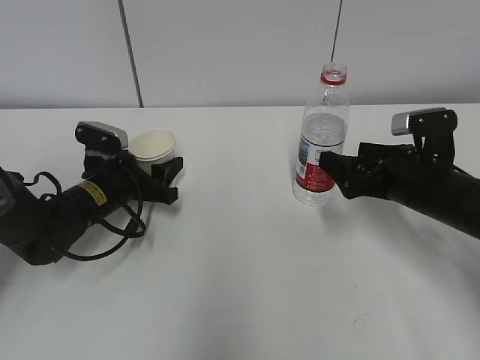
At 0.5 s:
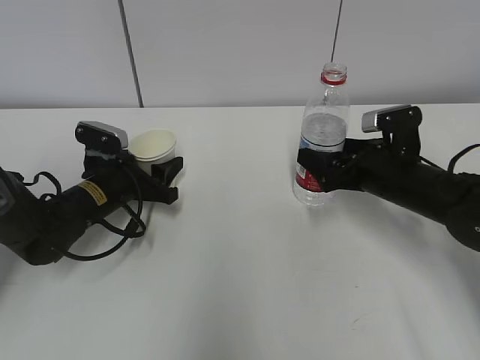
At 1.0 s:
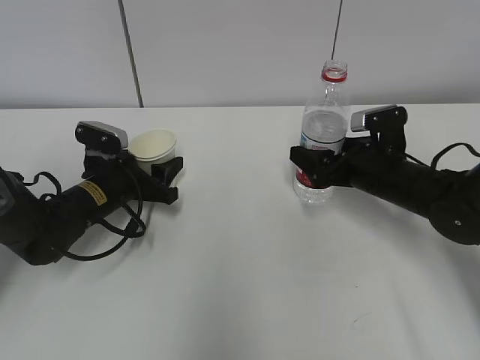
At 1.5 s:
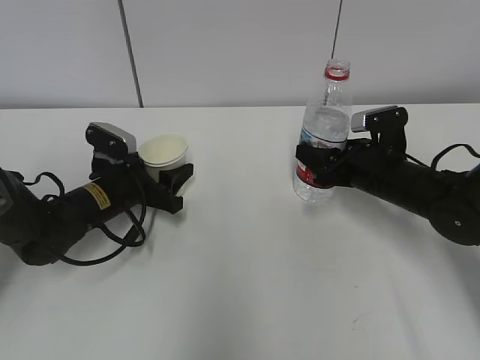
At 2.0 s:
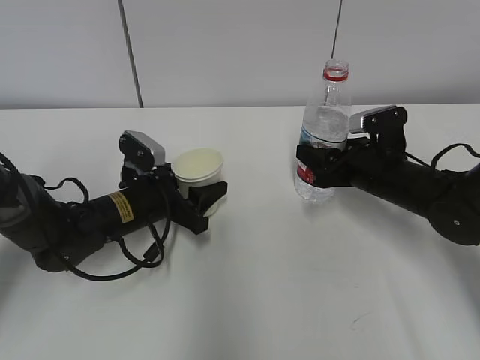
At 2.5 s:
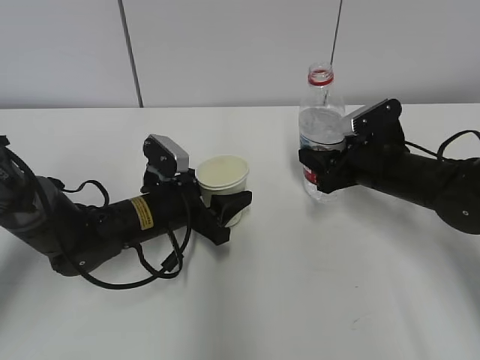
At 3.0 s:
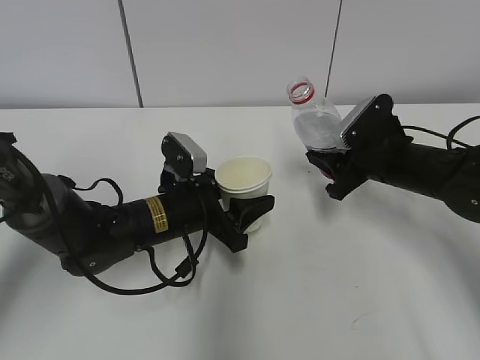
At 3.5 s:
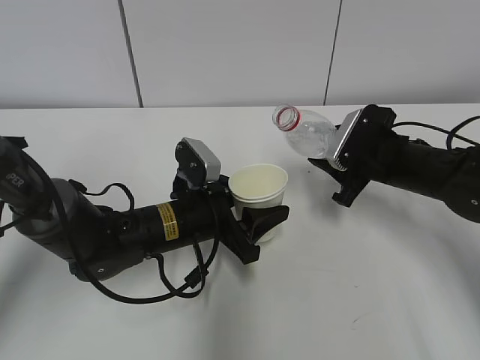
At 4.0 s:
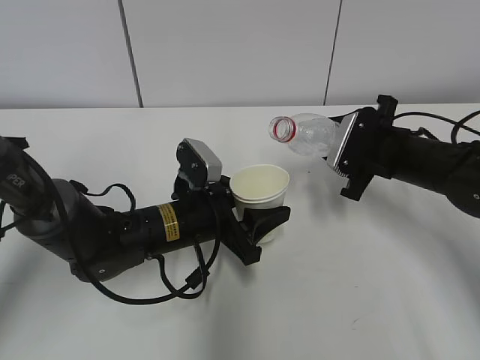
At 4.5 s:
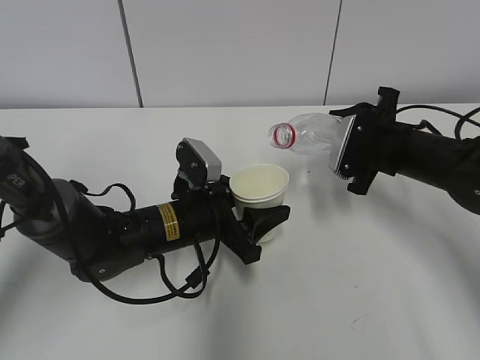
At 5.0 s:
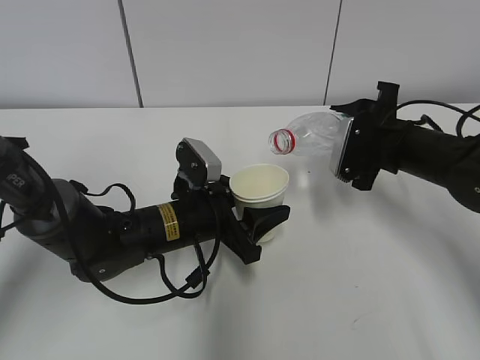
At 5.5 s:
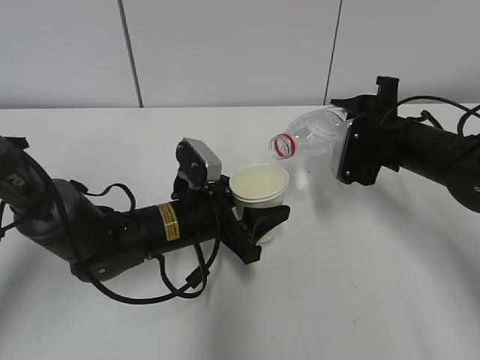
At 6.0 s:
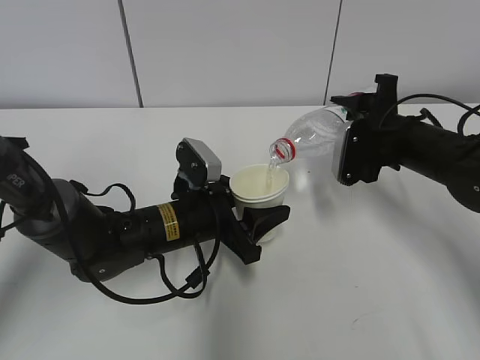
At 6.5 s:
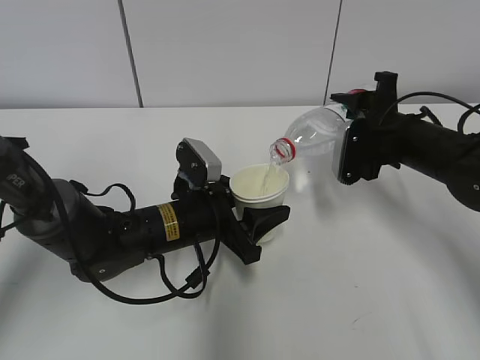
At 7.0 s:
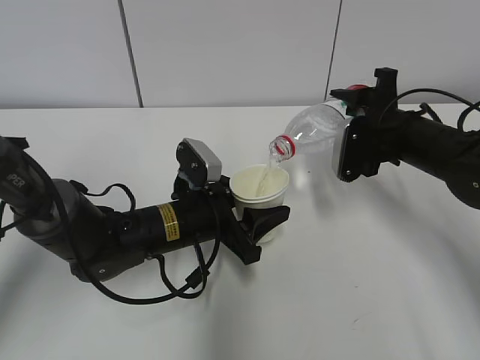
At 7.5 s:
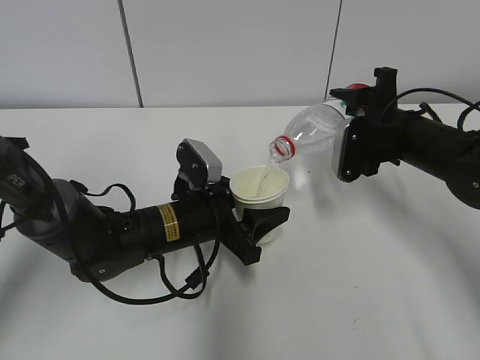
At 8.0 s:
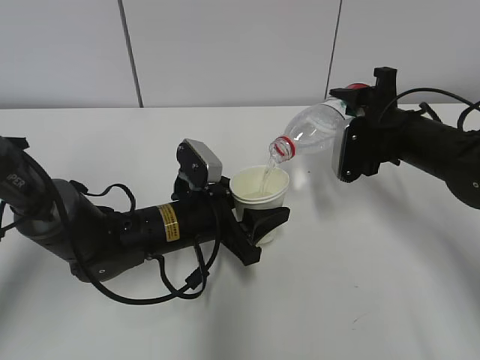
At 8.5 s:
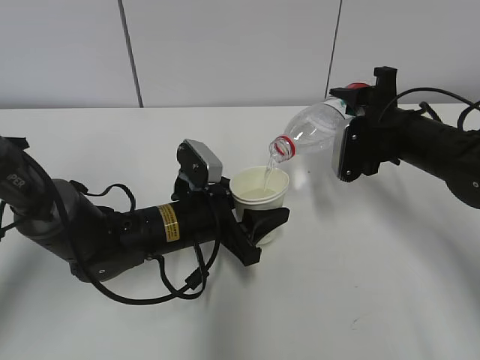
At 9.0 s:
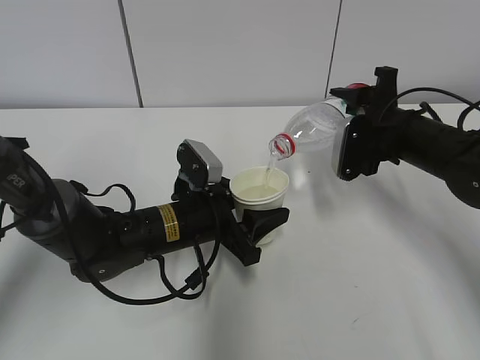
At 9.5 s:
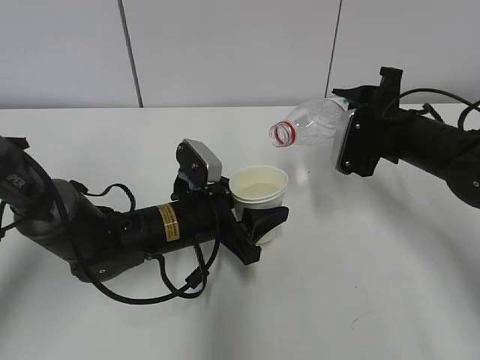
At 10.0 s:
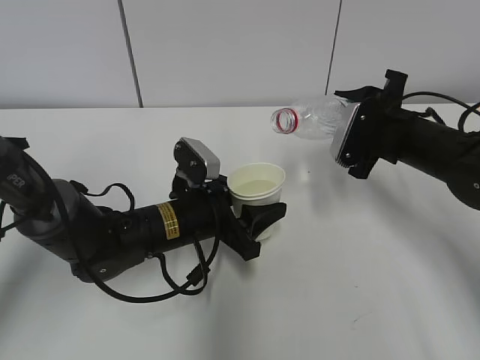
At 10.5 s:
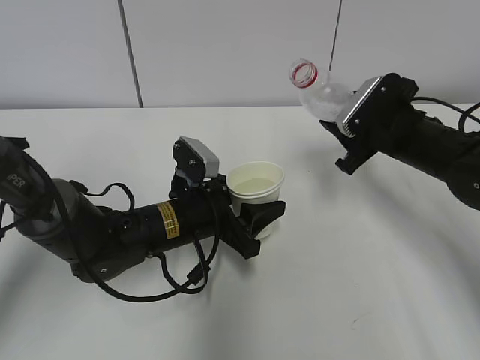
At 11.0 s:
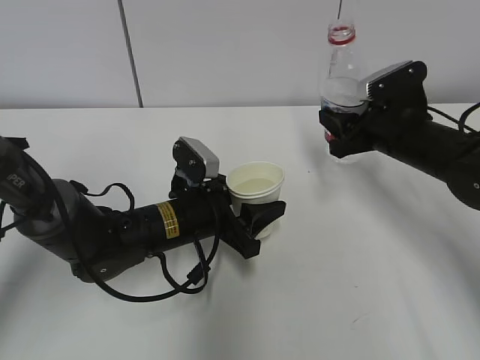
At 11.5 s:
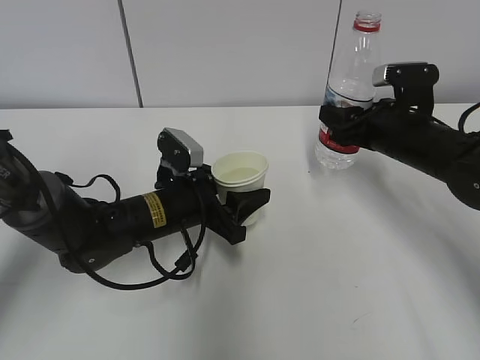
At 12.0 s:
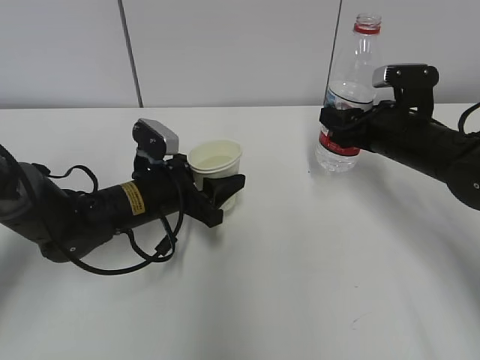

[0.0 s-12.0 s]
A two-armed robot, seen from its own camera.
Step, 0.5 to 3.0 s: Lift the paper cup with the left hand.
Step, 3.5 to 6.5 s: Pour water with the right hand.
Step, 8.5 to 10.0 s: Place the paper cup with the left hand.
0.0 to 2.0 s: The right gripper travels forward by some 5 cm, and closes its fingers.
2.0 to 4.0 s: The left gripper shifts about 10 cm to the right.
6.0 to 8.0 s: Both grippers stay put.
8.0 to 10.0 s: The grippers make only small movements.
10.0 to 12.0 s: The left gripper ends up some 5 cm from where it was.

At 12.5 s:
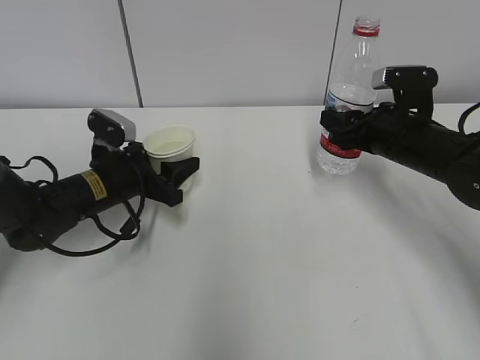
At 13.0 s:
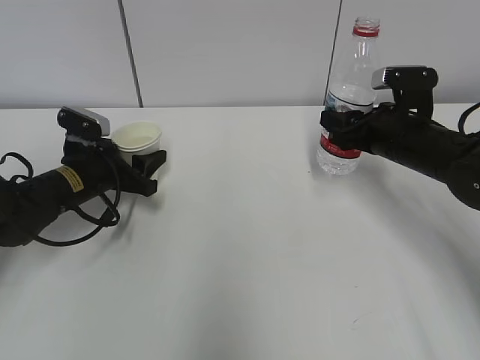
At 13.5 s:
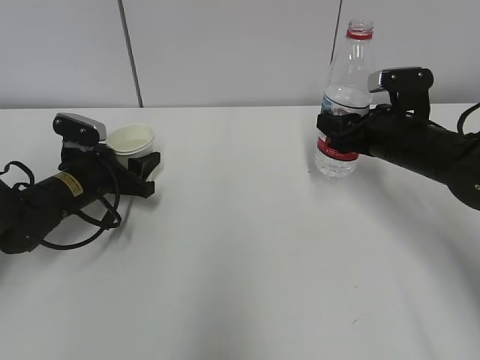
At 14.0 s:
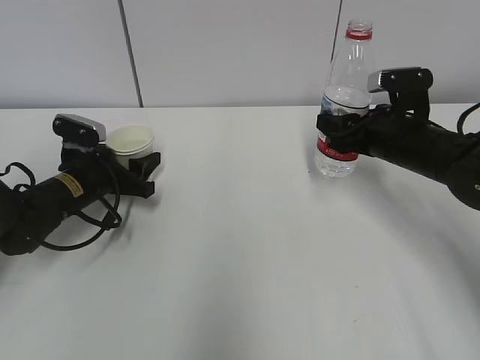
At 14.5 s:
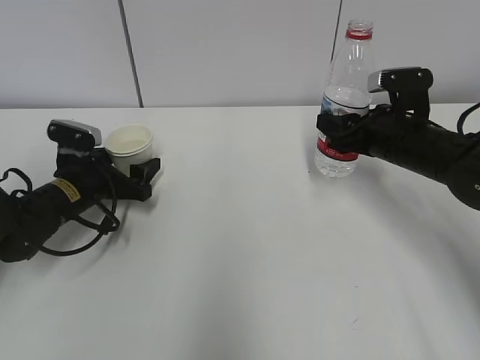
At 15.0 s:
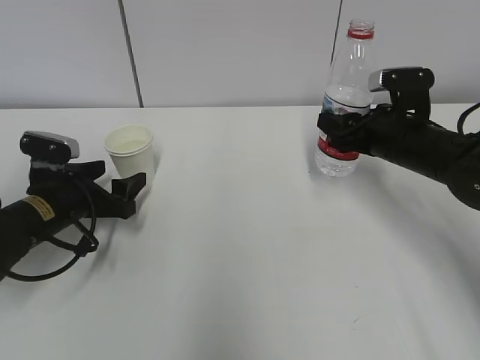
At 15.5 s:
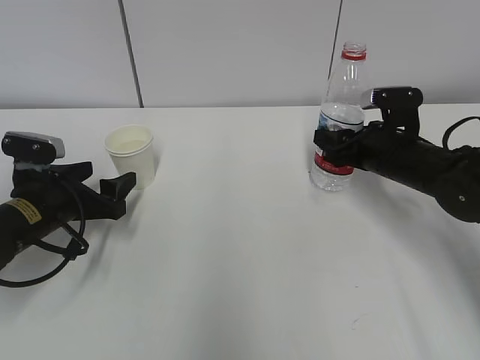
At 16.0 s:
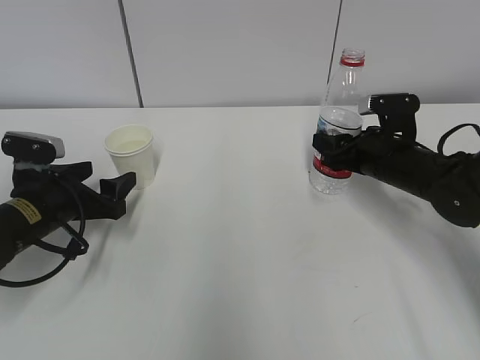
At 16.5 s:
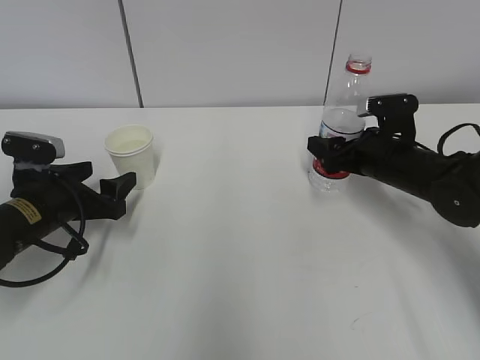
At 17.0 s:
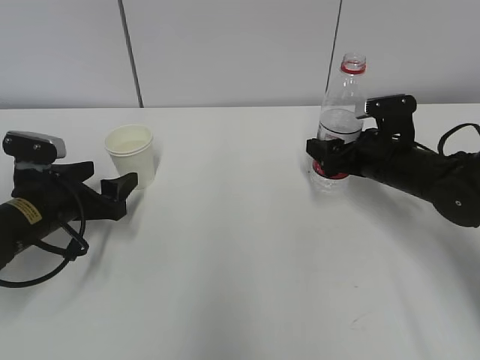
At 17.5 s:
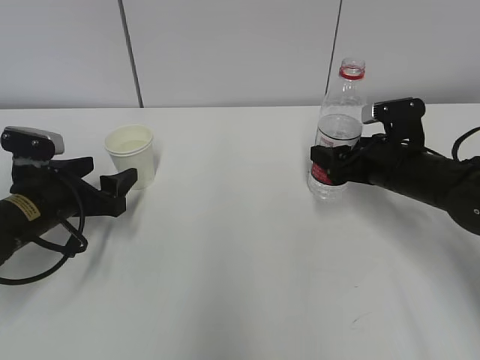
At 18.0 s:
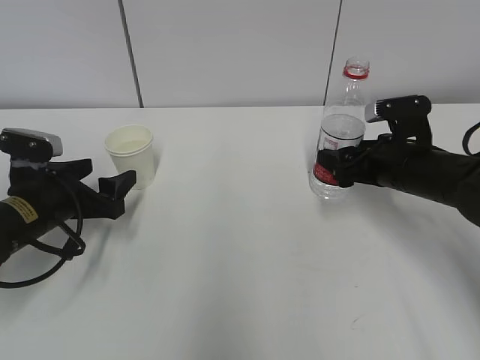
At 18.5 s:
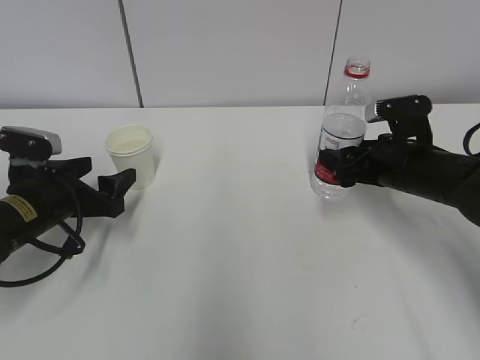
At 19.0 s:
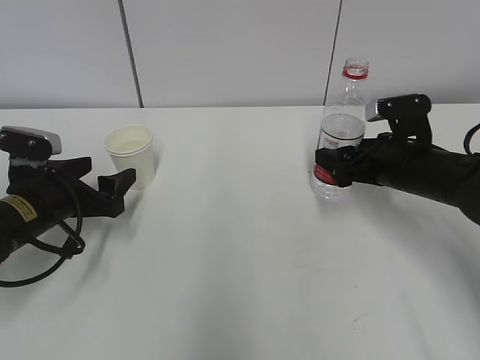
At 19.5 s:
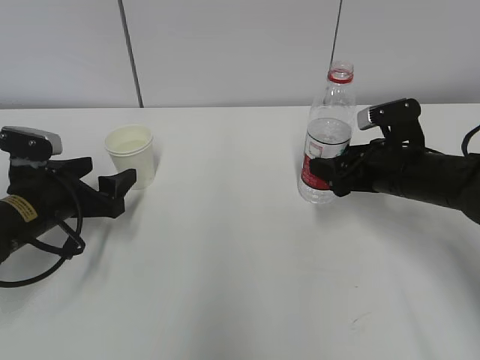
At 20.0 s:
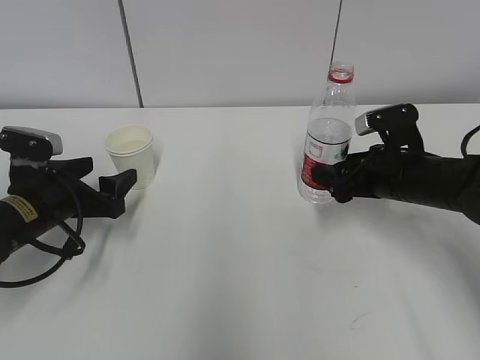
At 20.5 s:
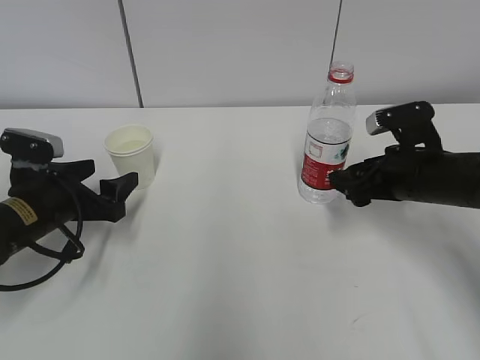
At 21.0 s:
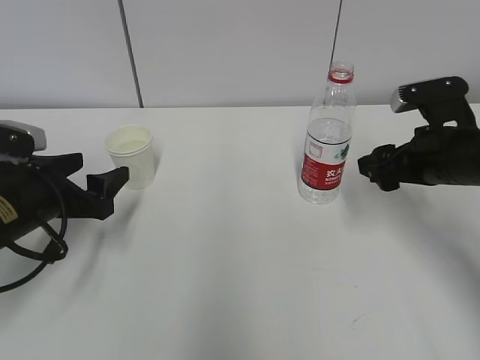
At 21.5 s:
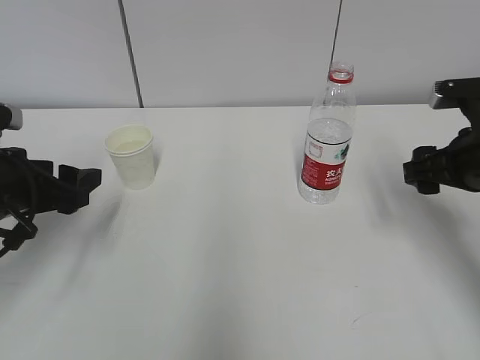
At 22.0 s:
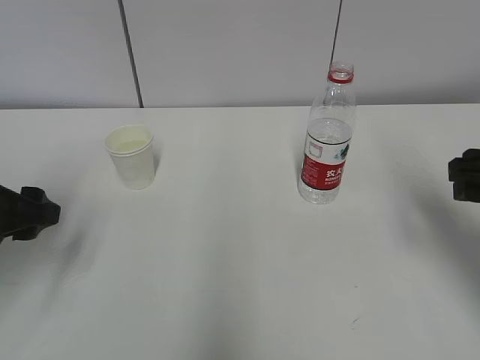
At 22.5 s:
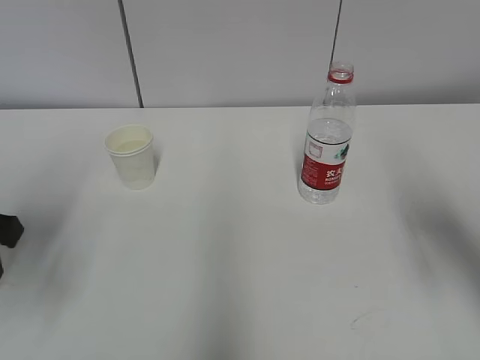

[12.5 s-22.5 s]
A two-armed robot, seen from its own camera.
12.5 to 14.5 s: The left gripper is displaced to the left by about 5 cm, and opens.
14.5 to 16.5 s: The right gripper opens its fingers. Meanwhile the left gripper moves backward, roughly 5 cm.
16.5 to 20.5 s: There are only small adjustments of the grippers.
20.5 to 22.5 s: Both grippers move upward and backward, approximately 15 cm.

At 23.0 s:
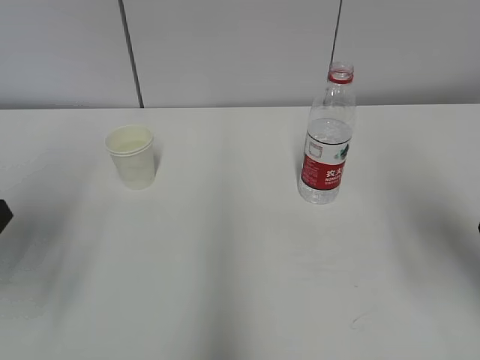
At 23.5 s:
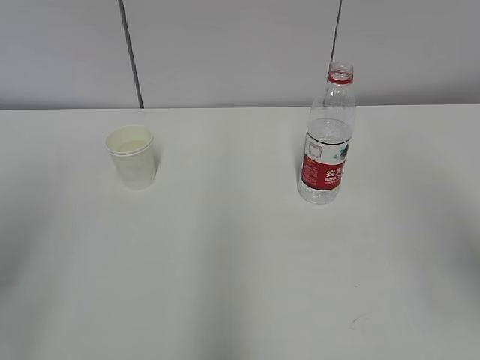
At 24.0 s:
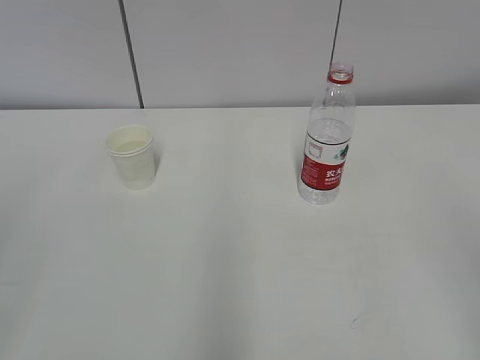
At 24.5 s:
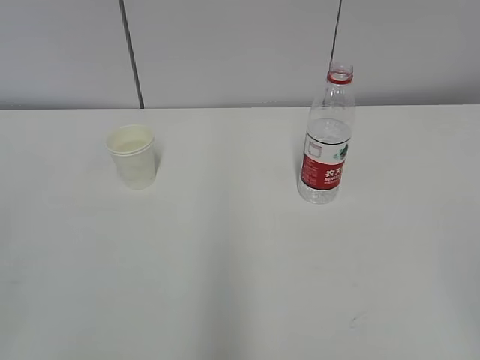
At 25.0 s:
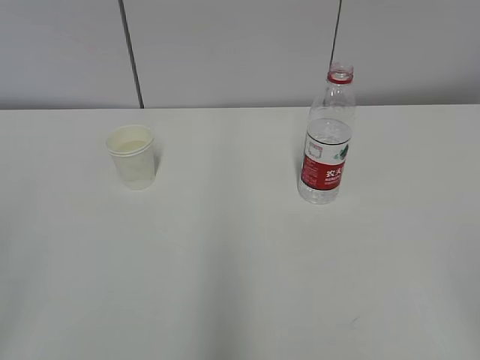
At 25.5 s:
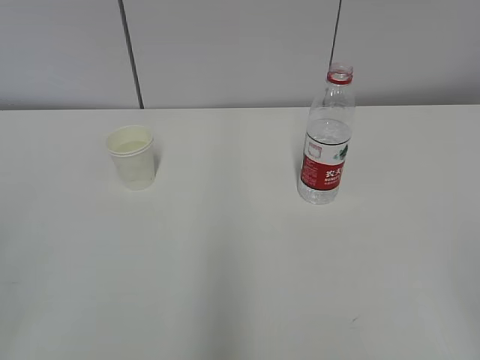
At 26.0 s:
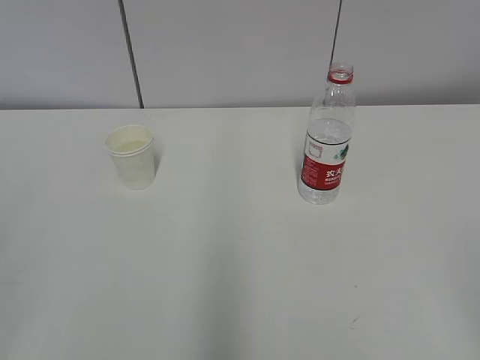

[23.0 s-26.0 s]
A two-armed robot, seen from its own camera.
23.0 to 24.5 s: Both grippers move backward, roughly 25 cm.
